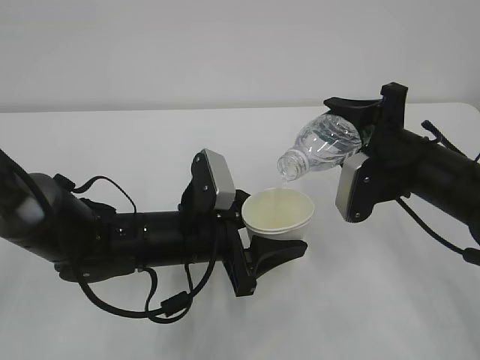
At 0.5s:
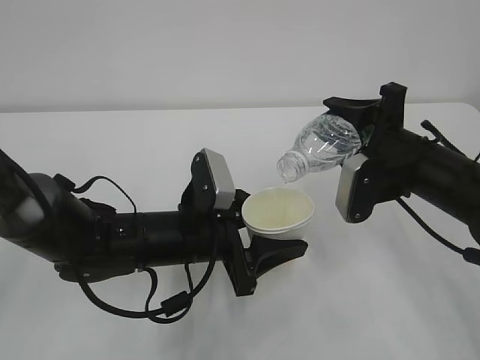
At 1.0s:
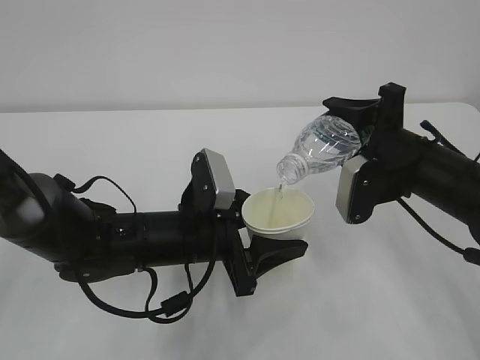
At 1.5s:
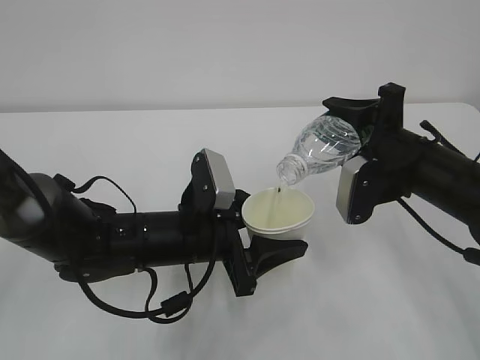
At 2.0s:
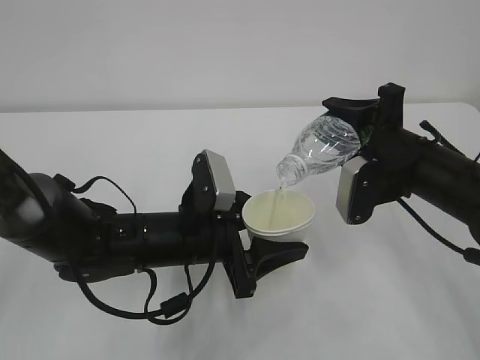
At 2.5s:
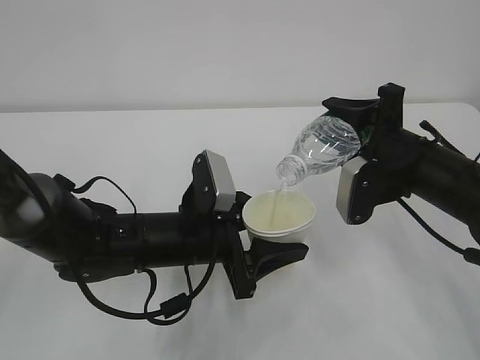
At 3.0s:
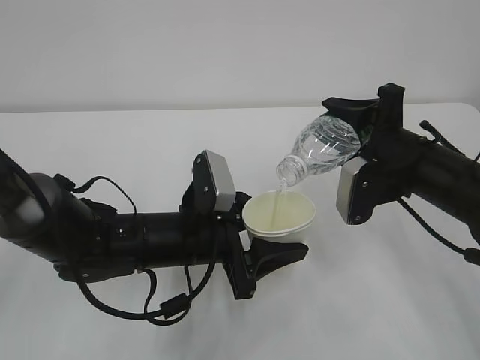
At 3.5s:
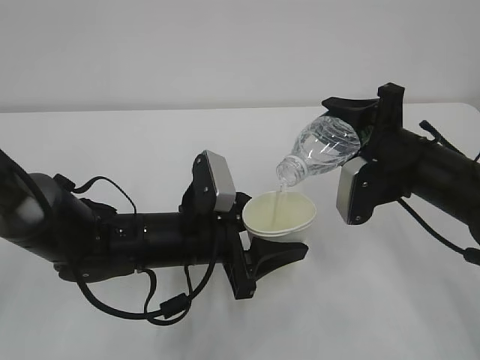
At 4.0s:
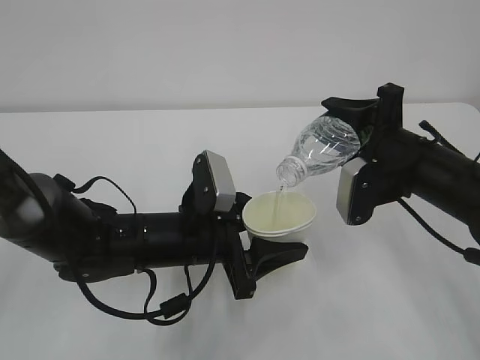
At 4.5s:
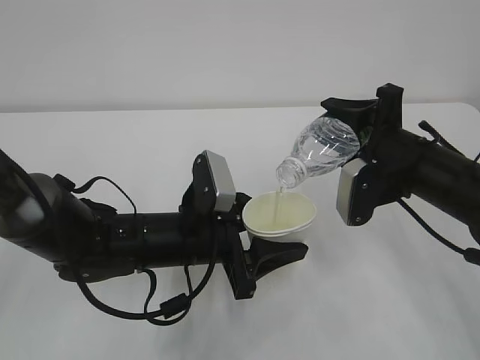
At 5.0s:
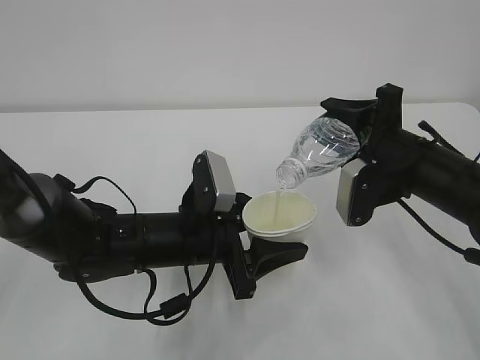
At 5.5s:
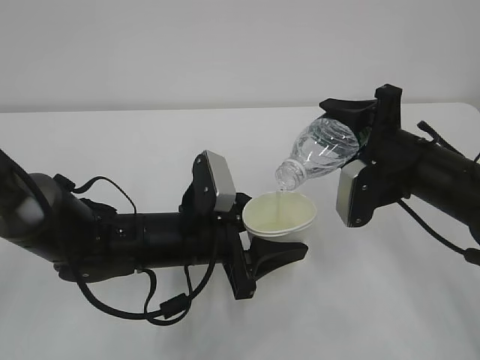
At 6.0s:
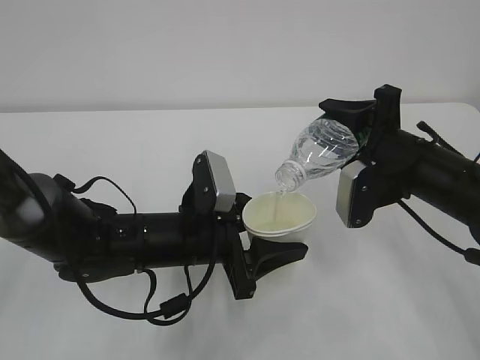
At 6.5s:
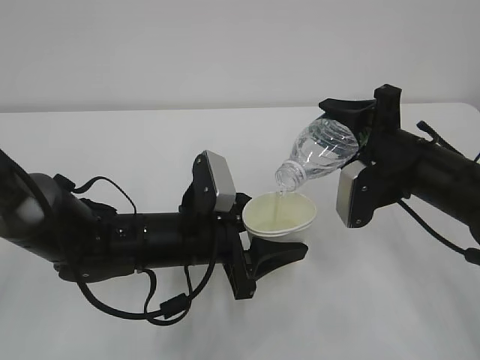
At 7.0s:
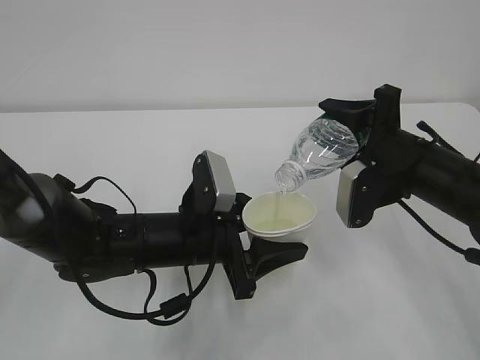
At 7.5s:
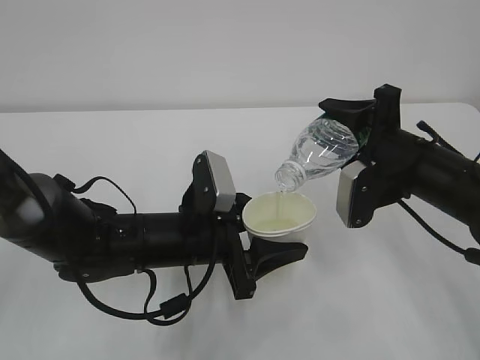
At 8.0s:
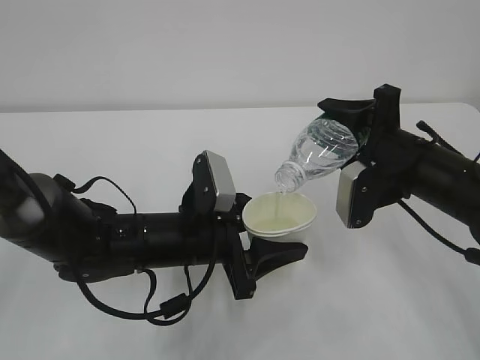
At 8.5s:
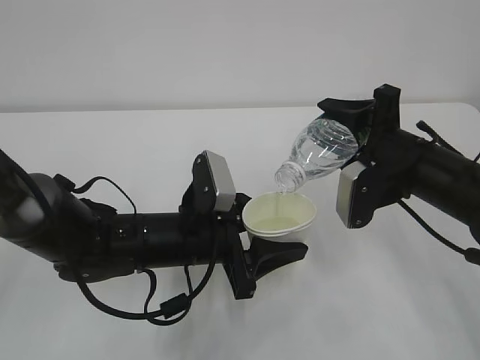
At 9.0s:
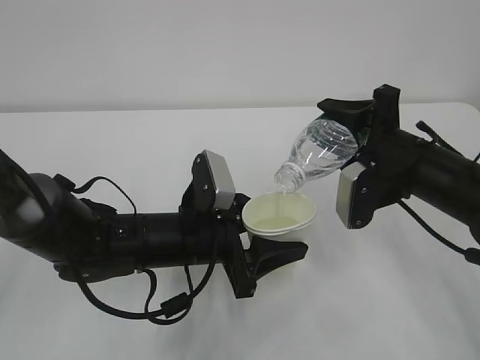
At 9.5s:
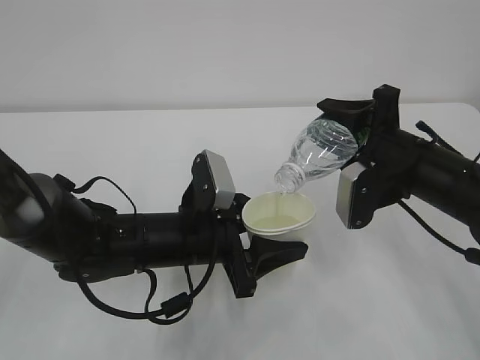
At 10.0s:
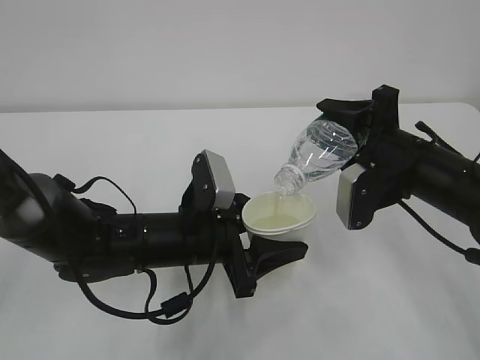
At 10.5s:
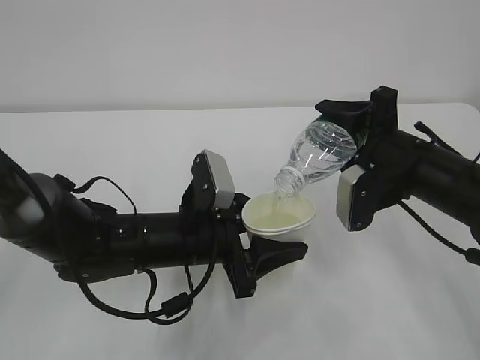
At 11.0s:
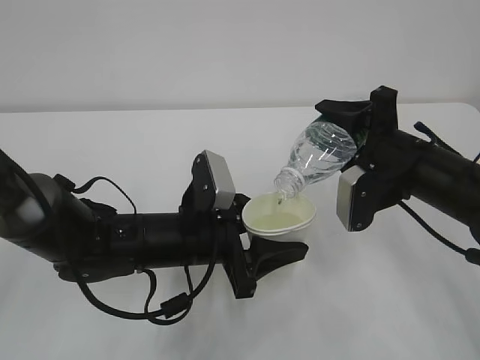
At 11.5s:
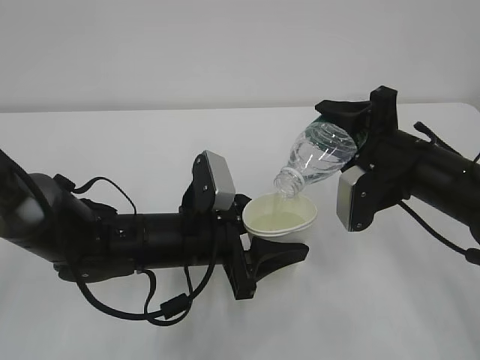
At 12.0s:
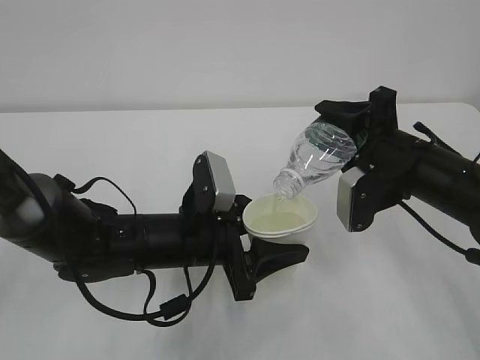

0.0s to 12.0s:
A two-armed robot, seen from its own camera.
0.0s to 4.0s: Neither gripper changes place.
4.0s to 10.0s: Both grippers stay about where they are.
10.0s to 12.0s: Neither gripper changes place.

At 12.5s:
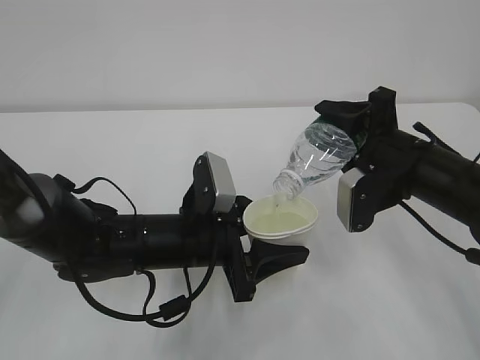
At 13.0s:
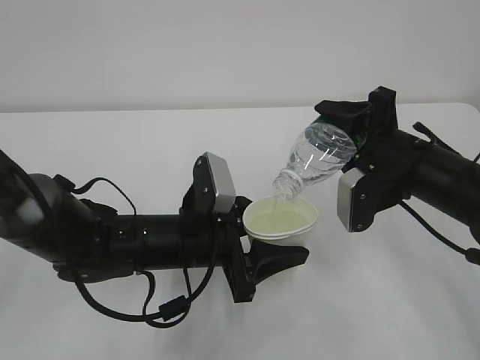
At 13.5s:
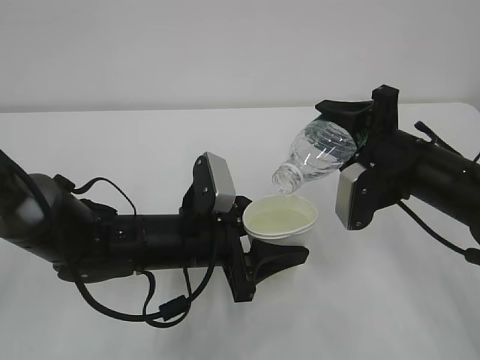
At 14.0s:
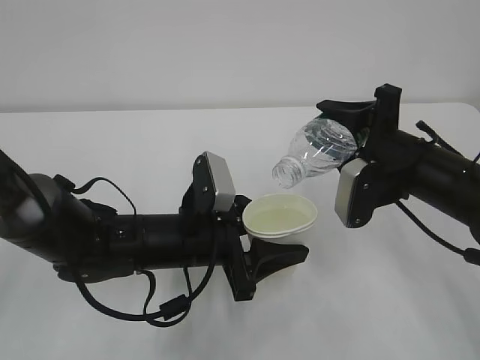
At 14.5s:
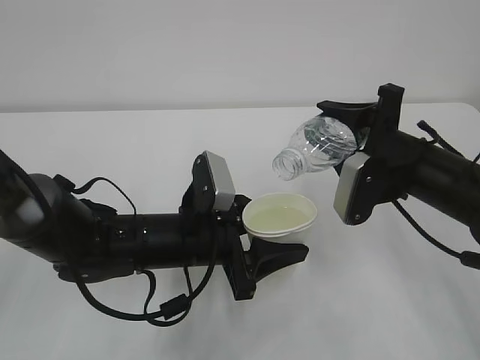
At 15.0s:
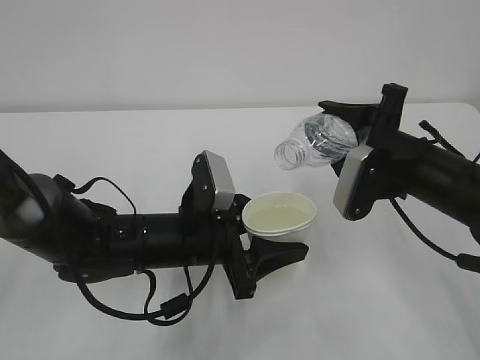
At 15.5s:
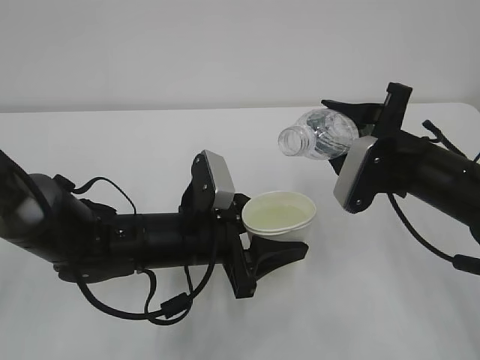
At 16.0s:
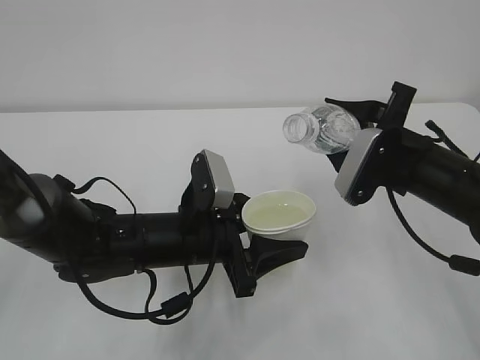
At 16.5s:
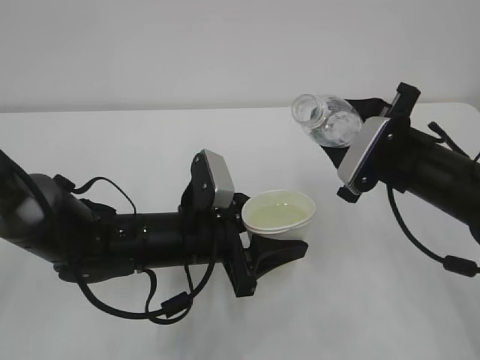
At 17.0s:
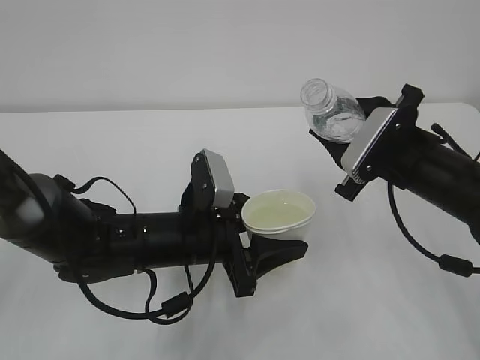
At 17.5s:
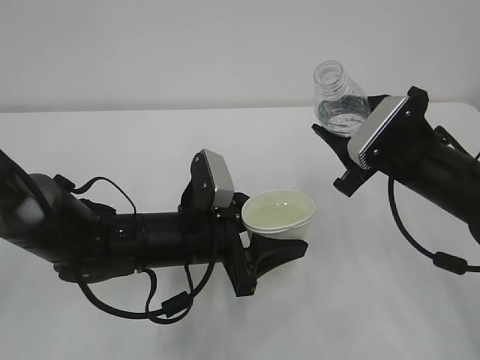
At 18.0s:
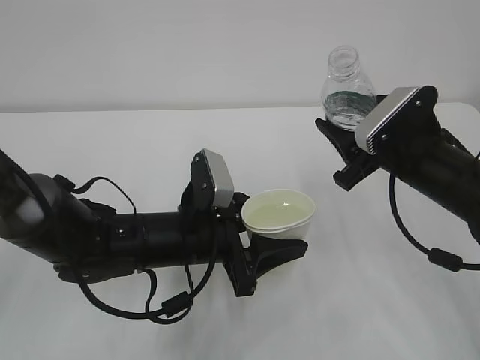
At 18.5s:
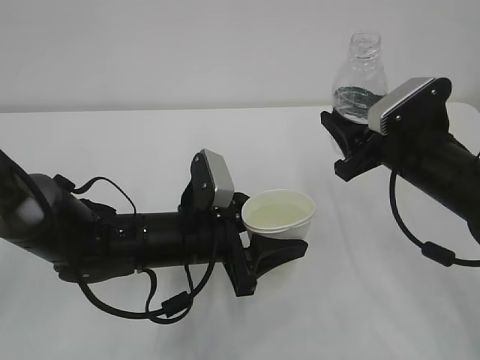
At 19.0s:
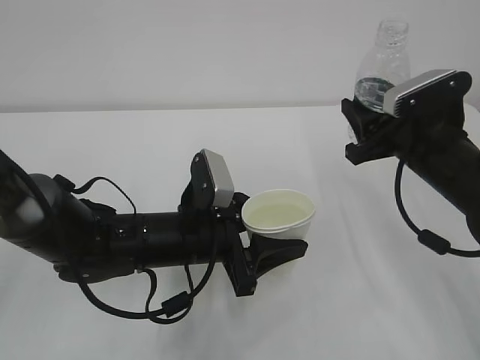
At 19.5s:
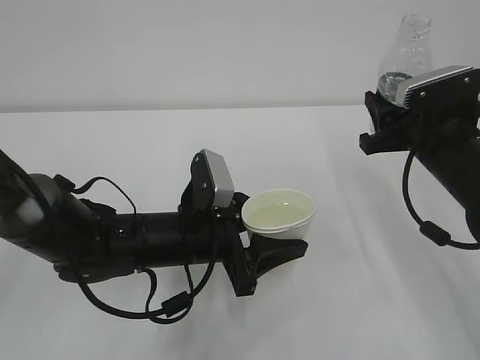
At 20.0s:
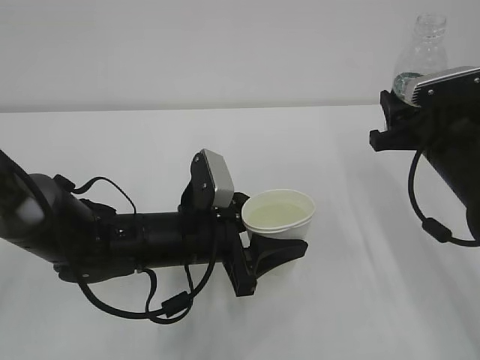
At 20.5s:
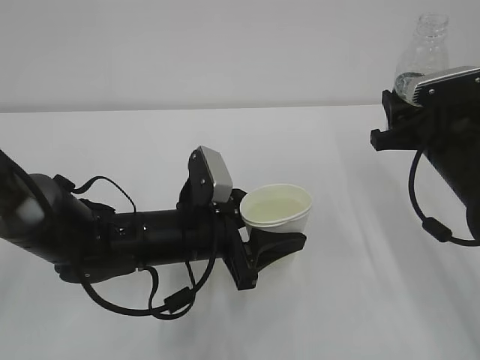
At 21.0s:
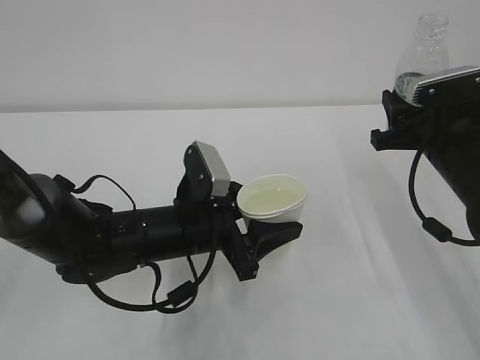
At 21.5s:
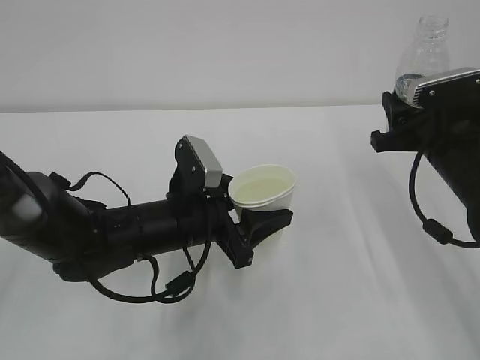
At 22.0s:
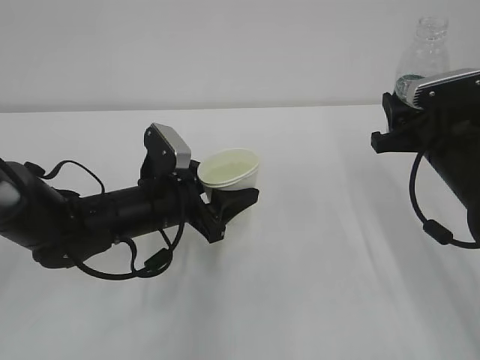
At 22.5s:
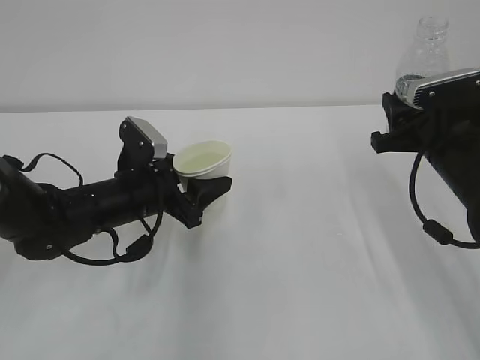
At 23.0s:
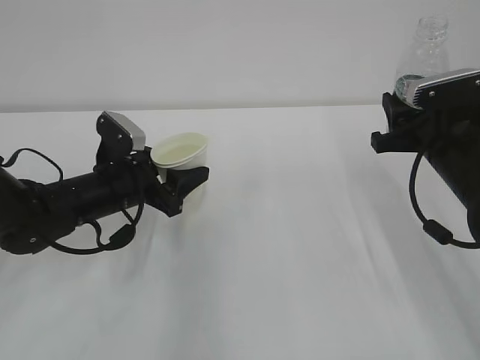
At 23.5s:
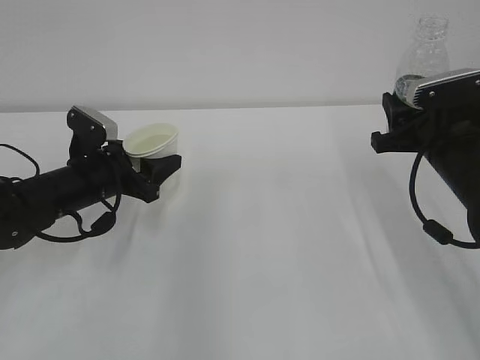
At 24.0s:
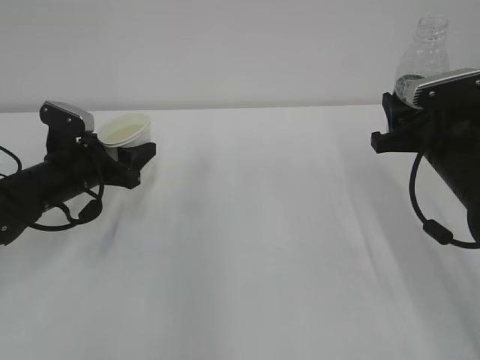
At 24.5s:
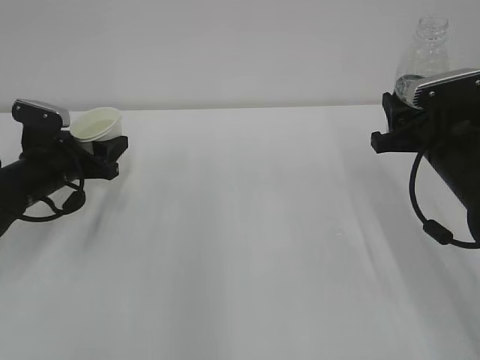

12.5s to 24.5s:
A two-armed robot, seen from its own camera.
12.5s to 14.5s: The grippers move only a little.
20.5s to 22.5s: The left gripper heads to the left and forward, covering about 10 cm.
22.5s to 24.5s: The left gripper moves to the left, approximately 15 cm.

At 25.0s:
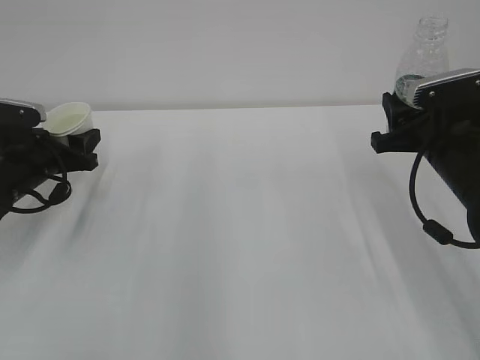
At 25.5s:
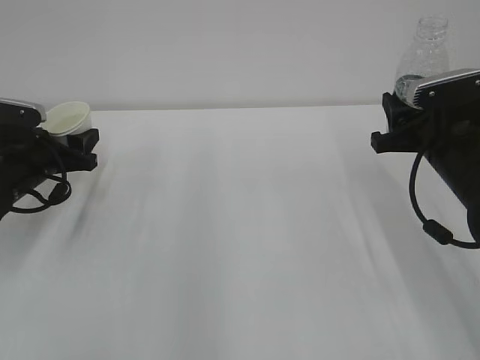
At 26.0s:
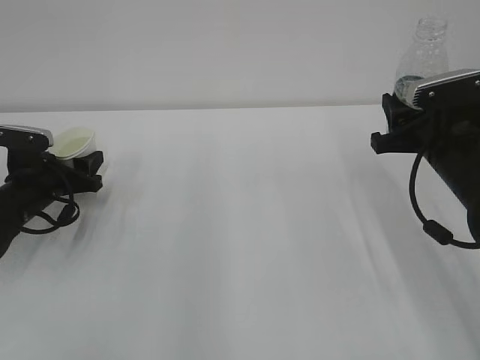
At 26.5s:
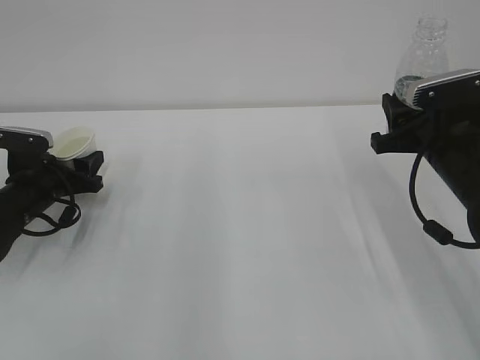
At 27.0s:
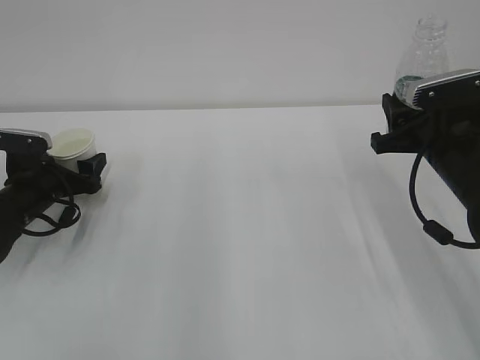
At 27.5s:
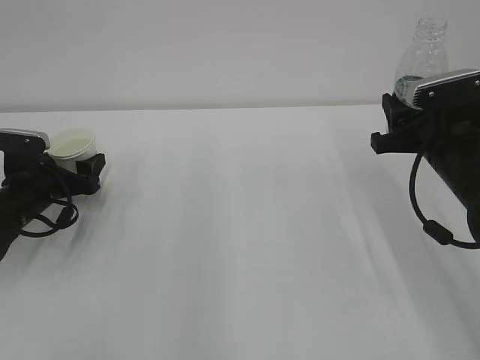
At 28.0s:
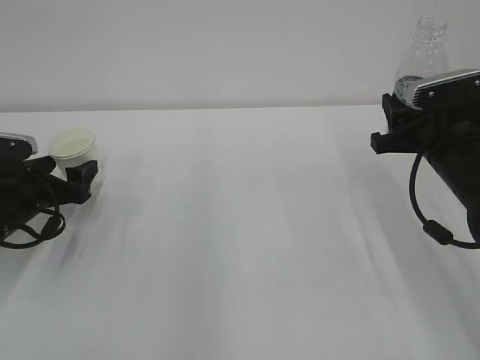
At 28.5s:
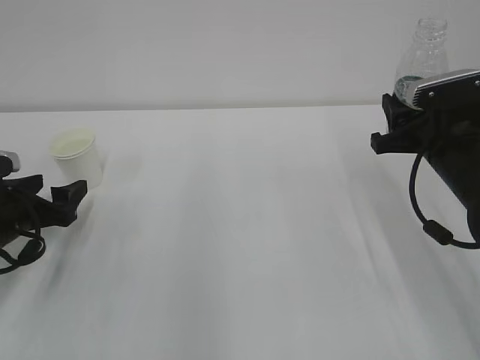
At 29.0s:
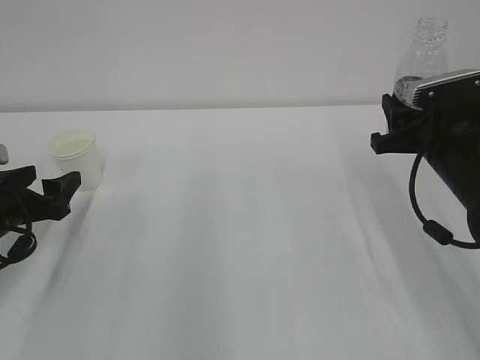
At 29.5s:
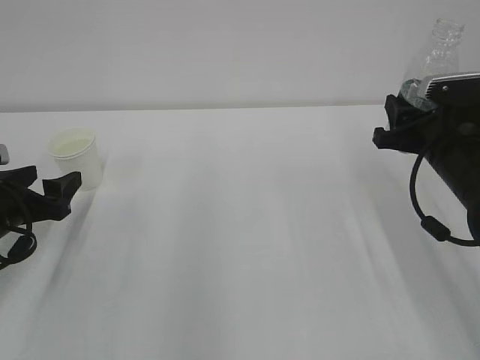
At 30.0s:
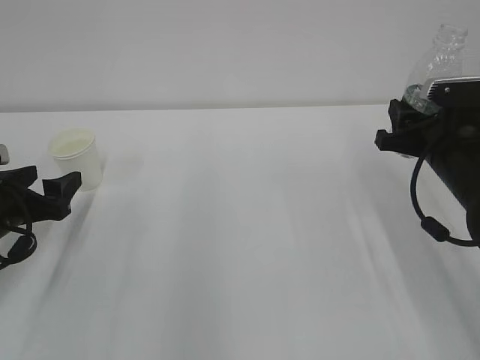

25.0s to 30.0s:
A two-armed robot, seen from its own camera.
25.0s to 27.5s: The left gripper opens its fingers.
27.5s to 30.0s: The left gripper goes approximately 10 cm backward.
